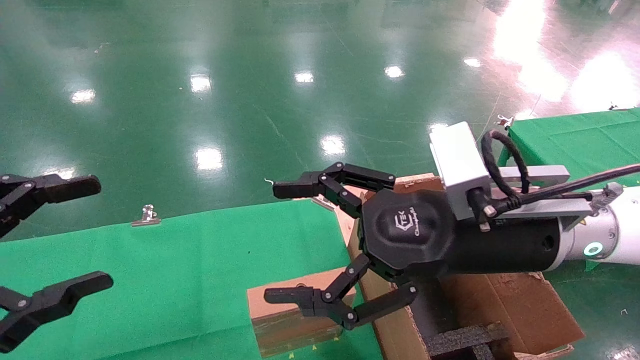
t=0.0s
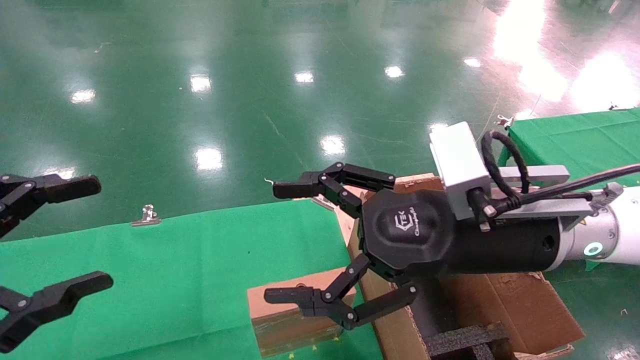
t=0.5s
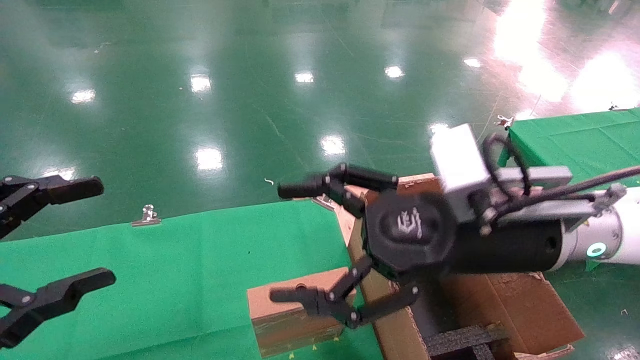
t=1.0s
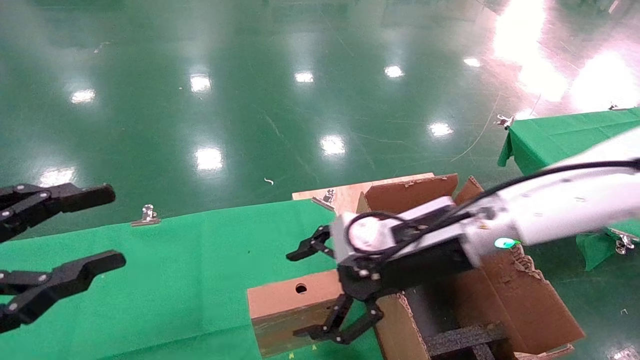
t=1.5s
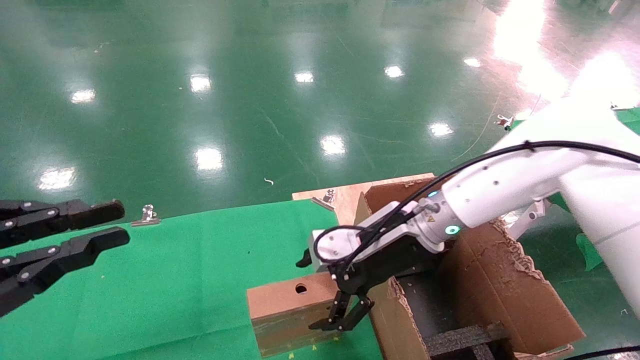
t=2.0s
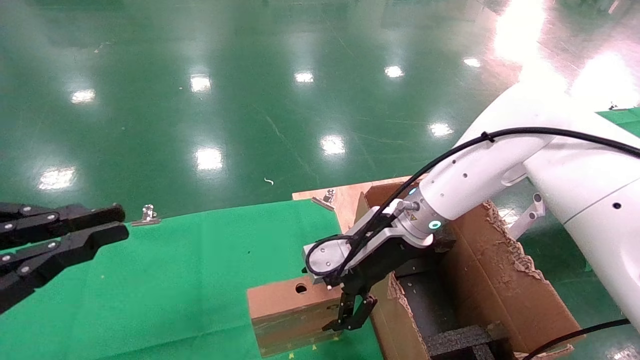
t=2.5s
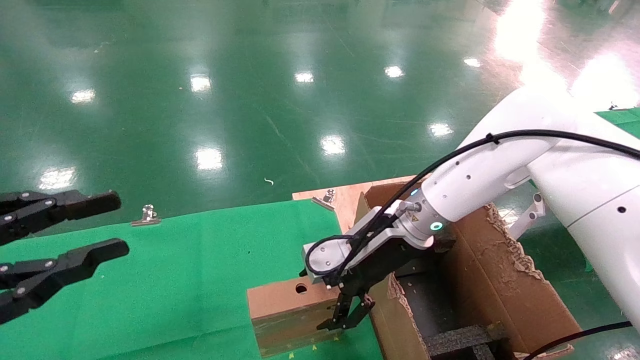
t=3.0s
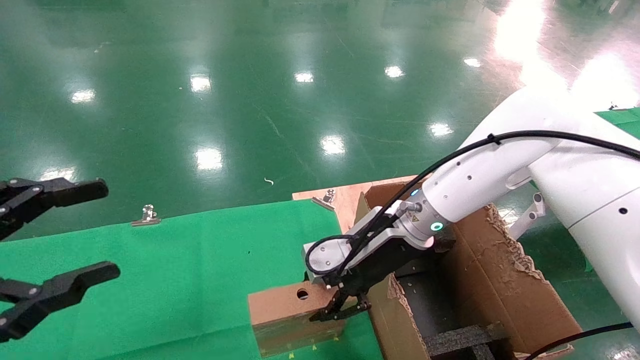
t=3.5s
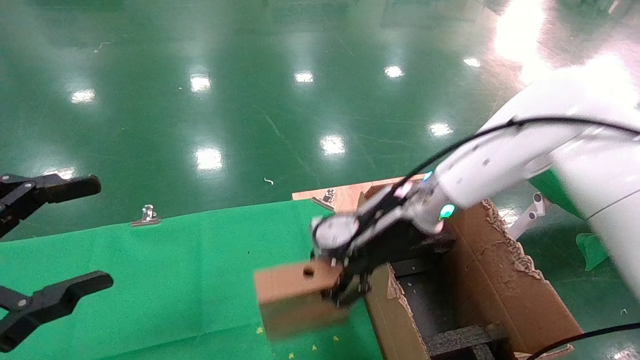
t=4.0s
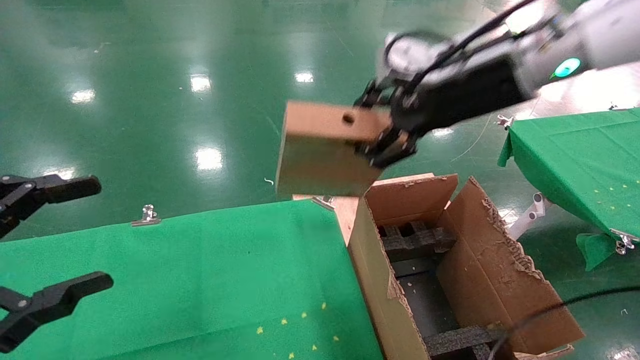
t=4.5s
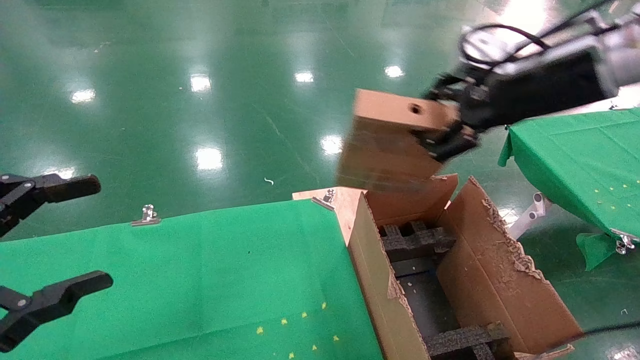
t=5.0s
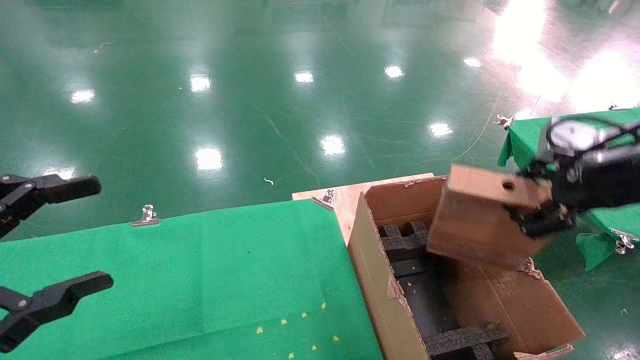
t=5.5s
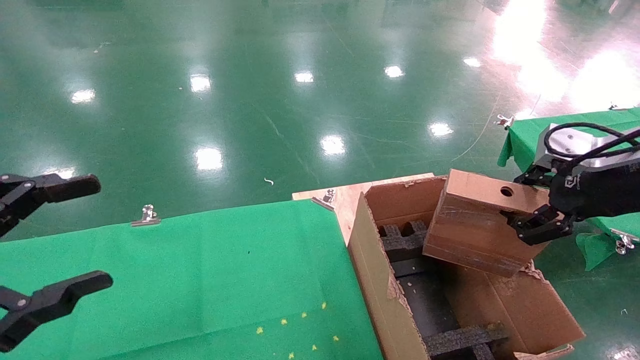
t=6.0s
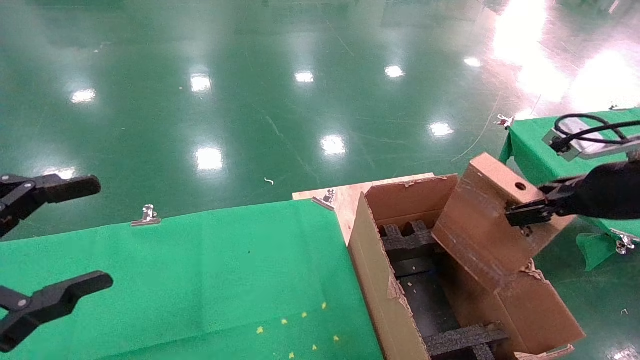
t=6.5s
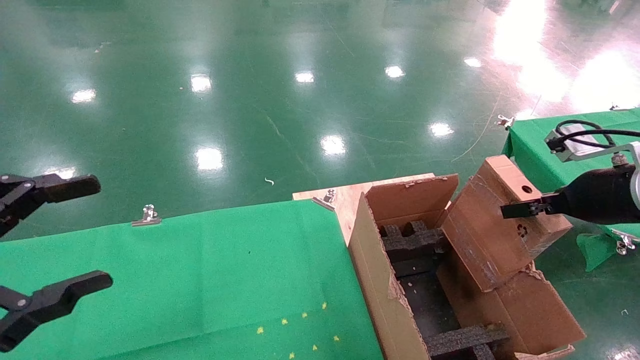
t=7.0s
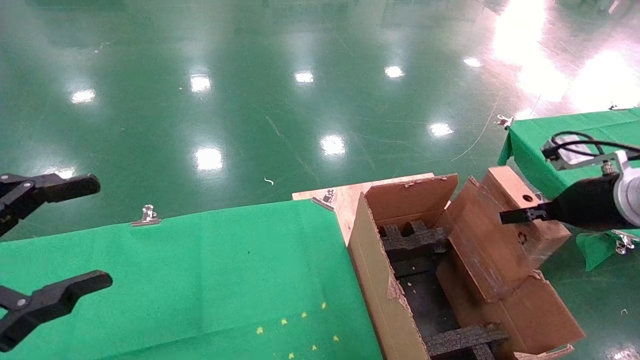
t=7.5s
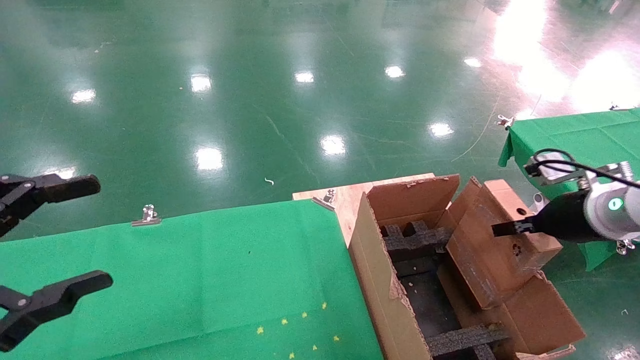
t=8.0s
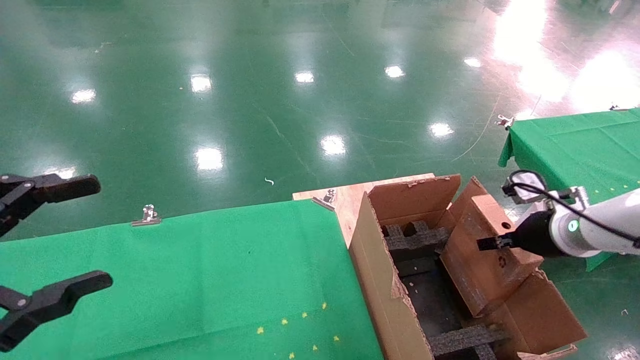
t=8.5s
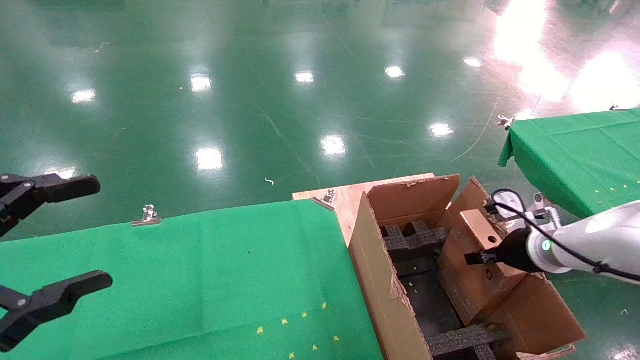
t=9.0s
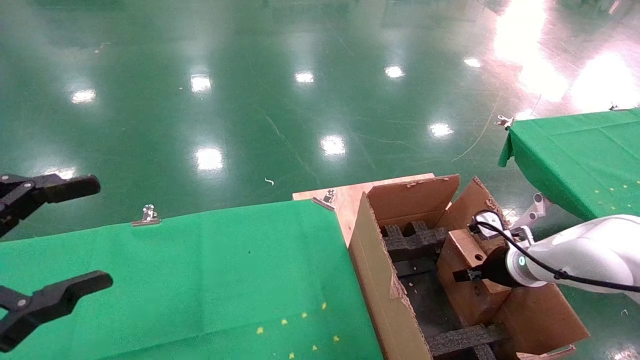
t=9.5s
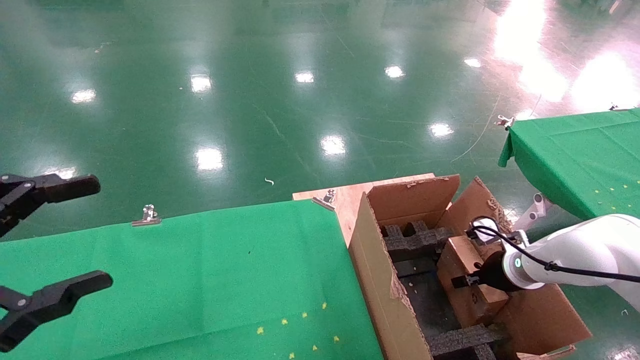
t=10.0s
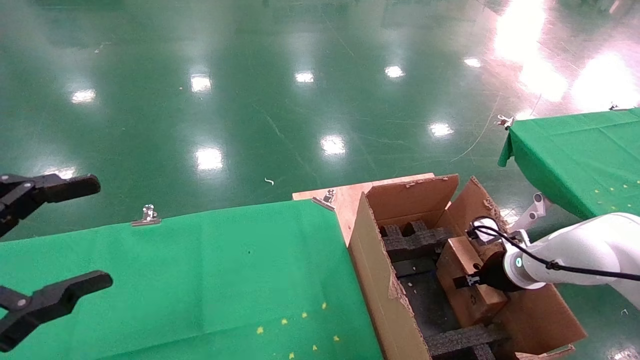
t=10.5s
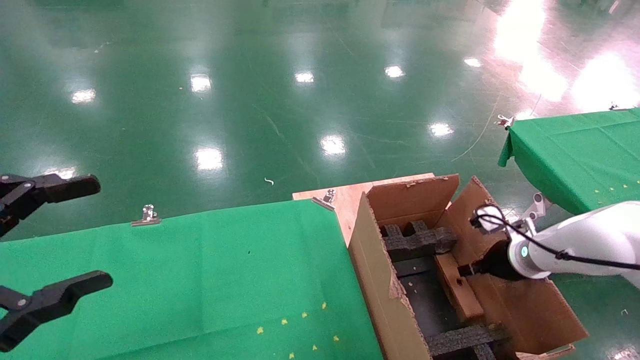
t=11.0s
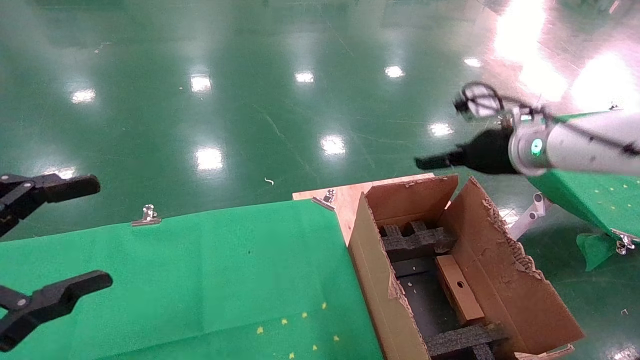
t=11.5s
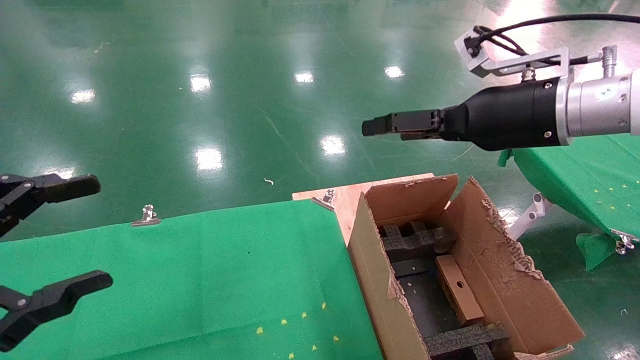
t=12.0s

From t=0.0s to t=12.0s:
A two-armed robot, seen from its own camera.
Task of the whole recording: using a robotic arm to pick up a cardboard box and palace it the carton.
Step, from t=1.5s to t=3.5s: Pick up the mouse and the power cord paper box.
Step, from t=4.0s to t=10.5s: Place the mouse and the power cord paper box into the container.
From t=0.0s to t=2.0s: The right gripper goes approximately 15 cm forward and downward. The left gripper closes up.
From t=2.0s to t=4.0s: The right gripper closes its fingers. Meanwhile the left gripper opens up.
From t=4.0s to t=6.0s: The right gripper heads to the right and backward, covering some 25 cm.
From t=6.0s to t=8.0s: The right gripper goes some 10 cm downward and forward.
From t=8.0s to t=10.0s: The right gripper moves downward and forward, roughly 15 cm.
From t=10.0s to t=12.0s: The right gripper moves upward, some 30 cm, and opens its fingers.

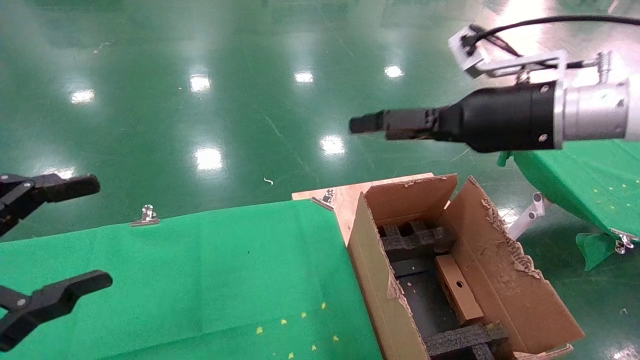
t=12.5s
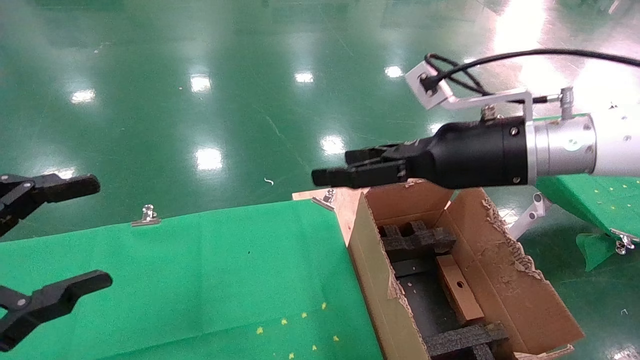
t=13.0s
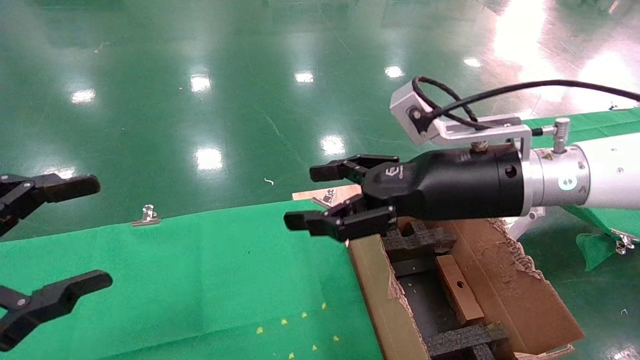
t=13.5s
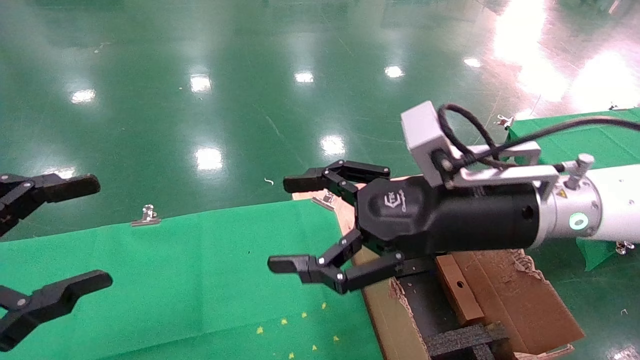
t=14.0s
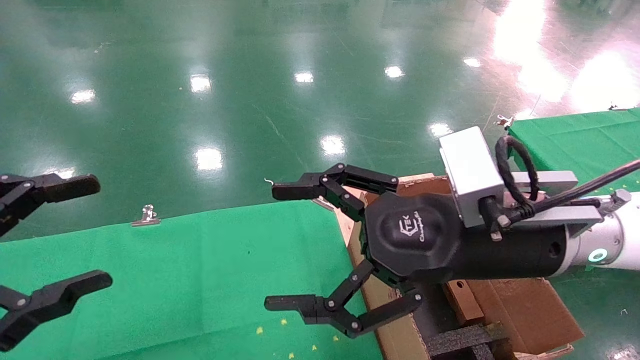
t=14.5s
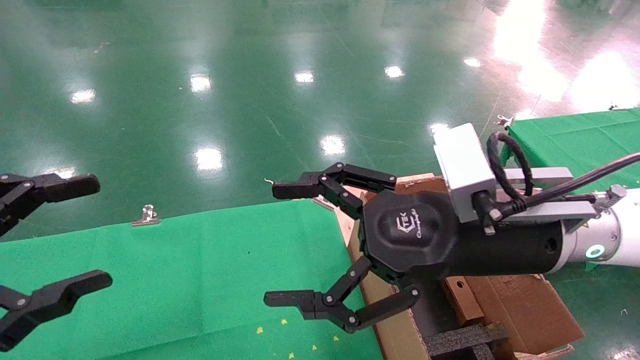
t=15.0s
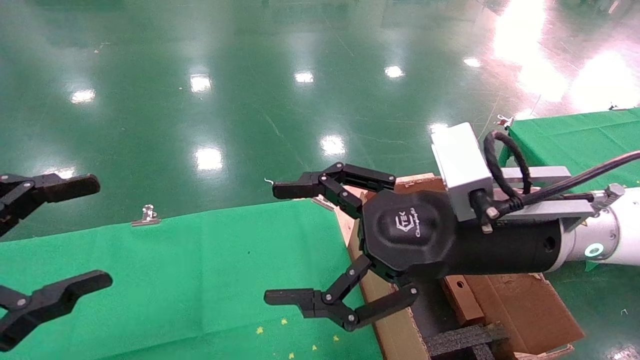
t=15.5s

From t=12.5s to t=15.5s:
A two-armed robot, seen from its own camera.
Task of the whole recording: using a robotic arm to pick up a cardboard box and palace it the carton.
From t=12.5s to t=14.0s: The right gripper shifts roughly 10 cm to the left, backward and downward.
From t=14.0s to t=15.5s: The grippers make only small movements.
